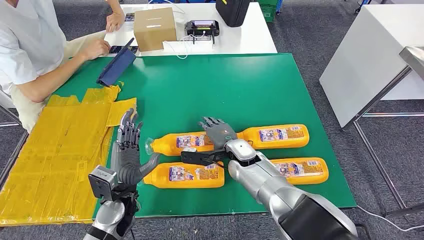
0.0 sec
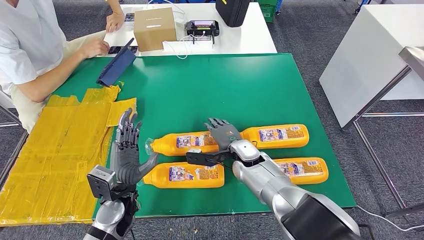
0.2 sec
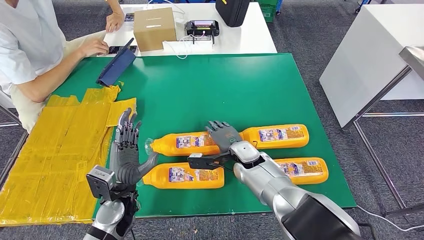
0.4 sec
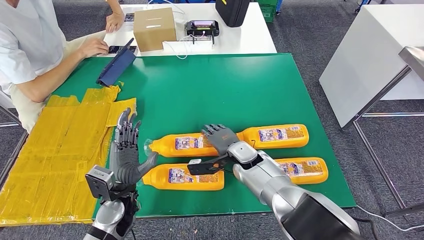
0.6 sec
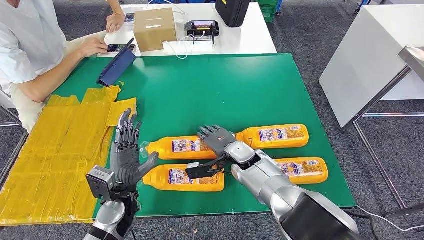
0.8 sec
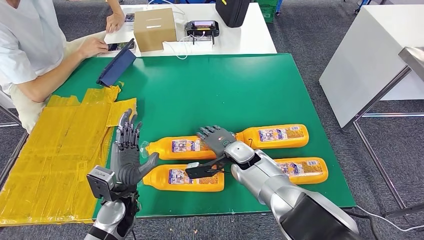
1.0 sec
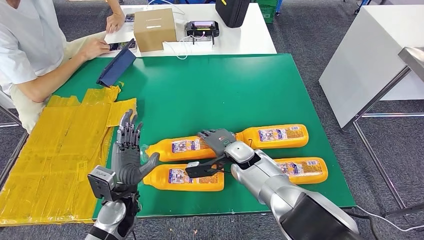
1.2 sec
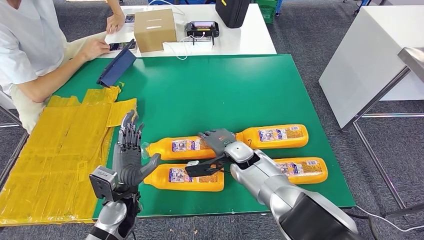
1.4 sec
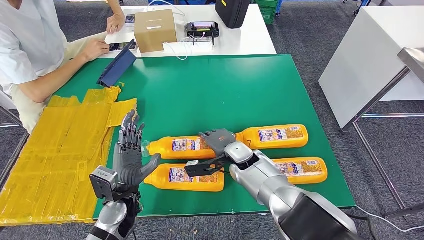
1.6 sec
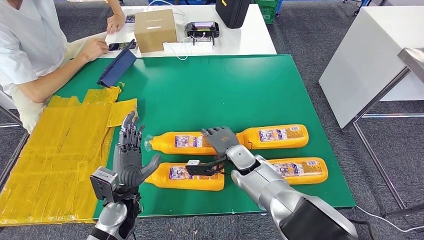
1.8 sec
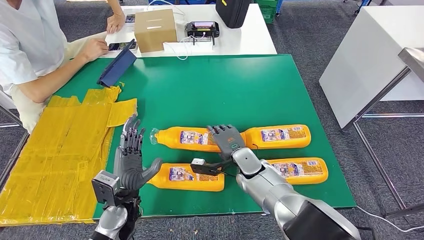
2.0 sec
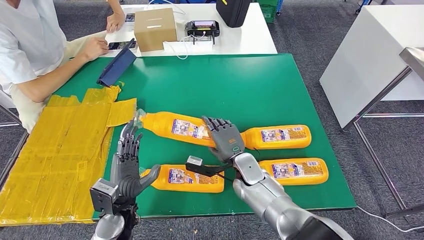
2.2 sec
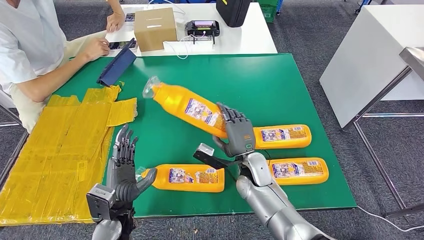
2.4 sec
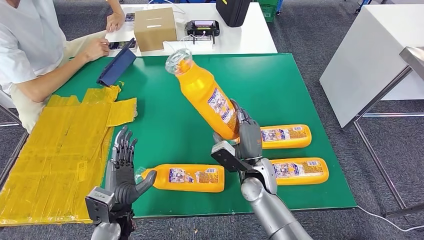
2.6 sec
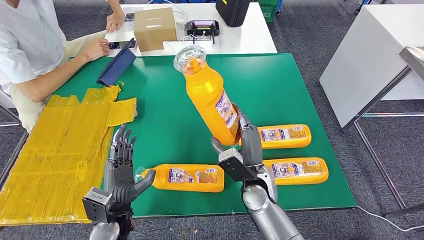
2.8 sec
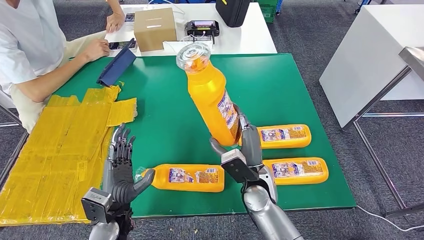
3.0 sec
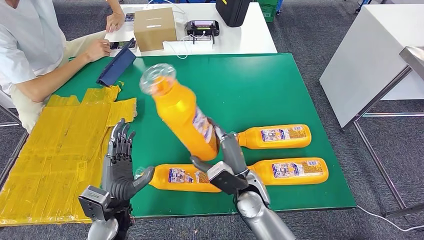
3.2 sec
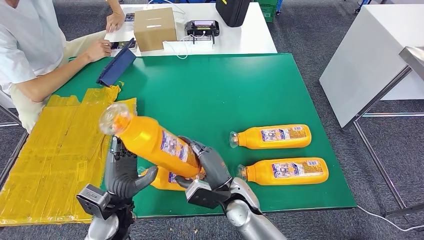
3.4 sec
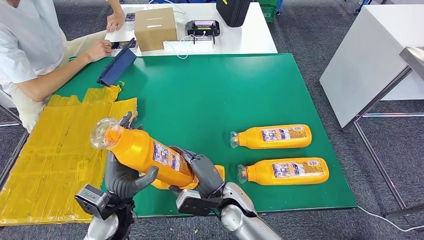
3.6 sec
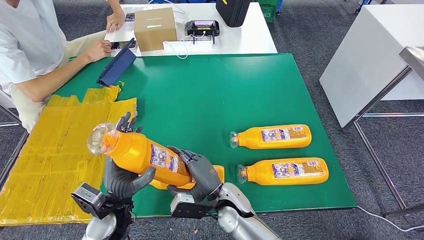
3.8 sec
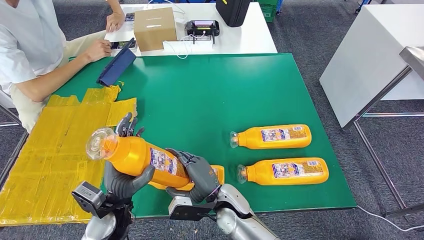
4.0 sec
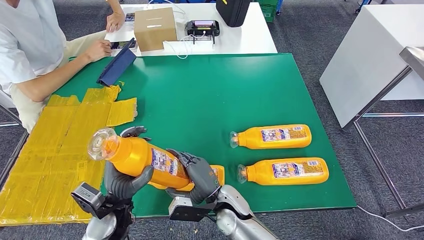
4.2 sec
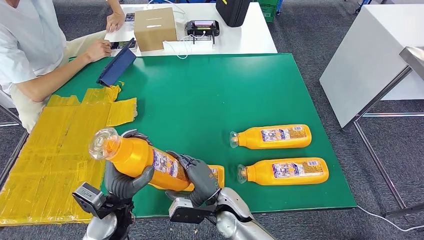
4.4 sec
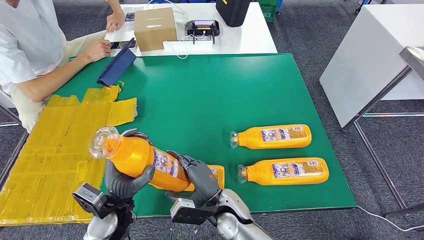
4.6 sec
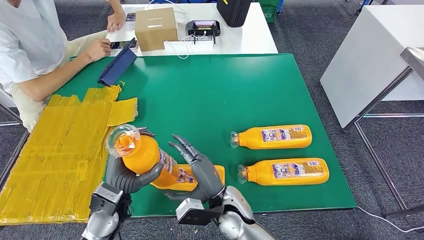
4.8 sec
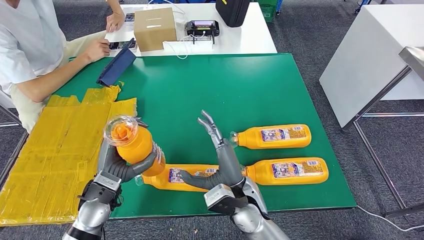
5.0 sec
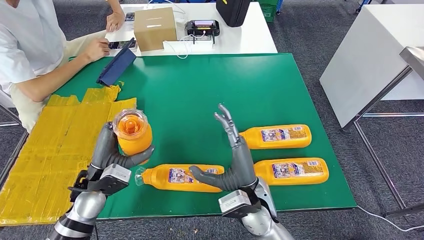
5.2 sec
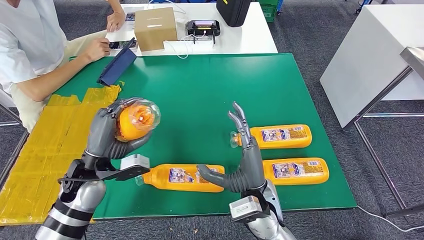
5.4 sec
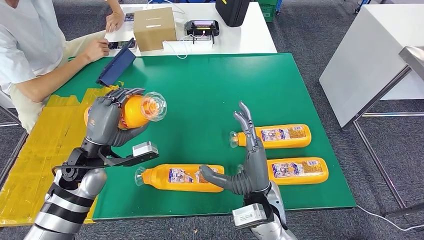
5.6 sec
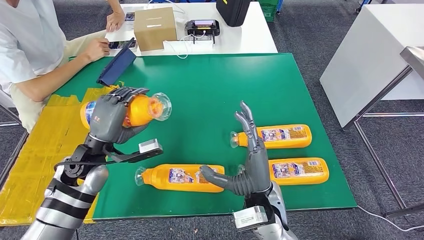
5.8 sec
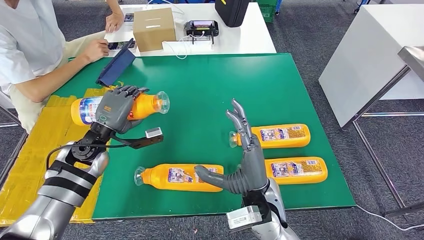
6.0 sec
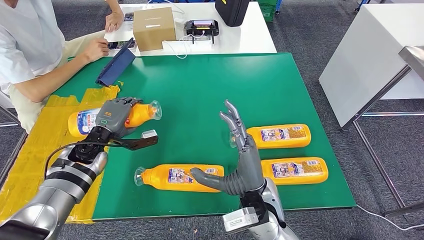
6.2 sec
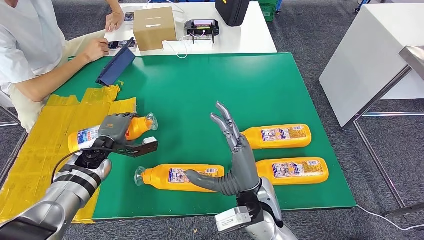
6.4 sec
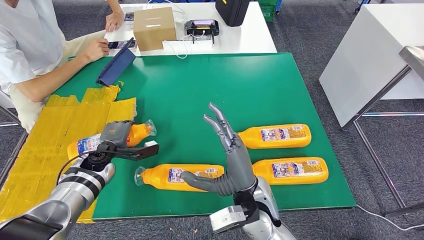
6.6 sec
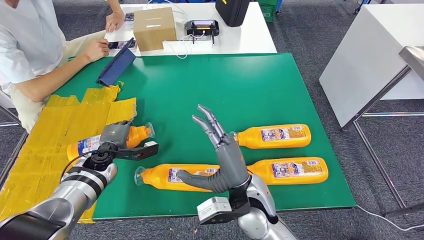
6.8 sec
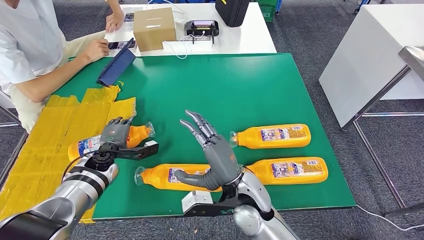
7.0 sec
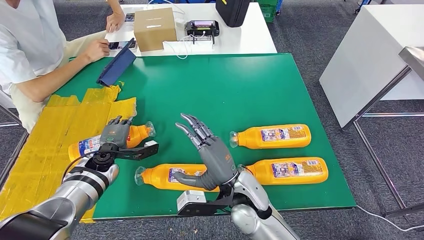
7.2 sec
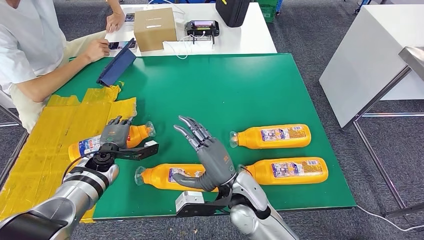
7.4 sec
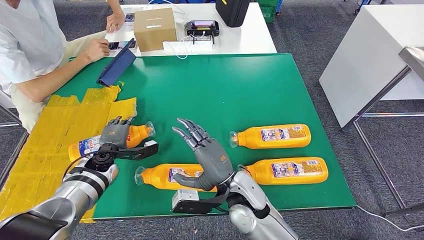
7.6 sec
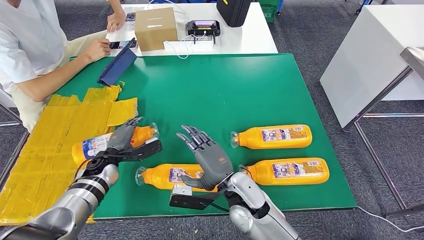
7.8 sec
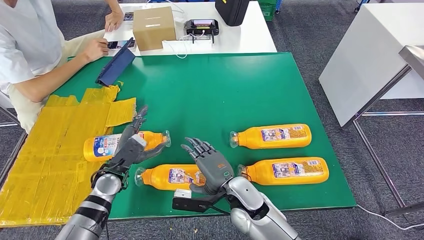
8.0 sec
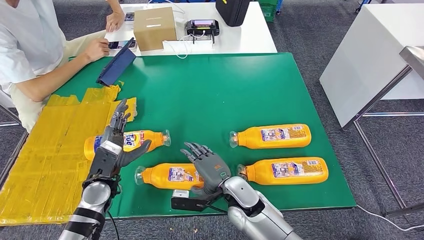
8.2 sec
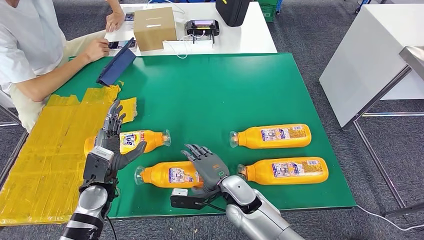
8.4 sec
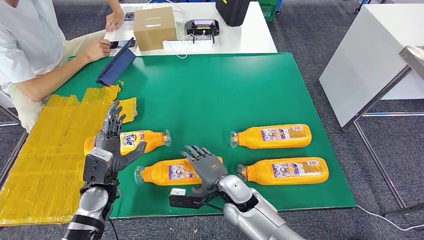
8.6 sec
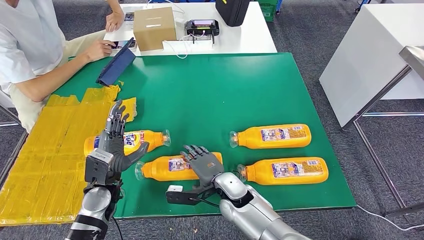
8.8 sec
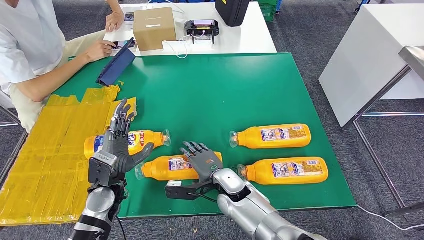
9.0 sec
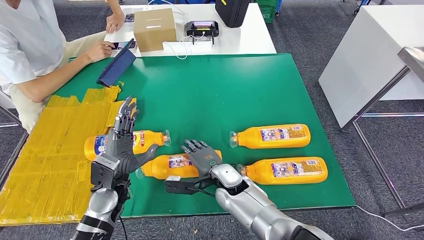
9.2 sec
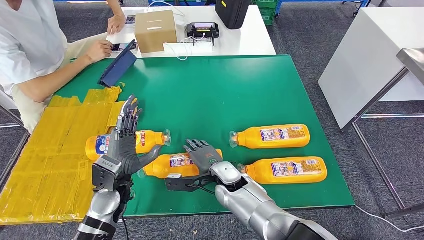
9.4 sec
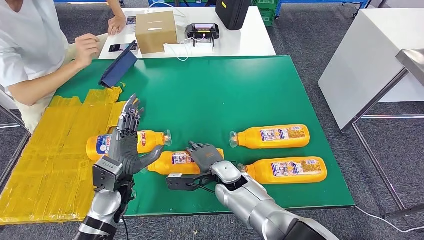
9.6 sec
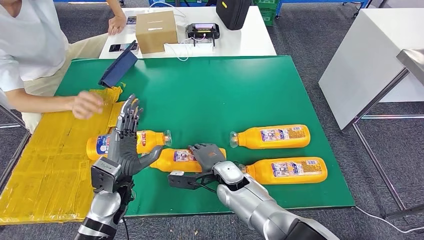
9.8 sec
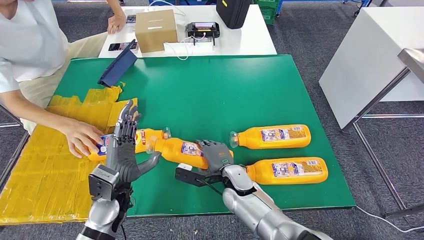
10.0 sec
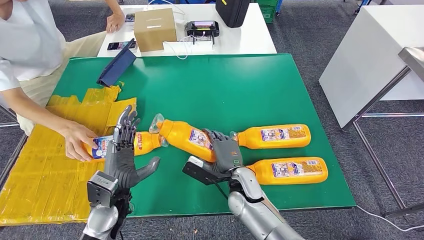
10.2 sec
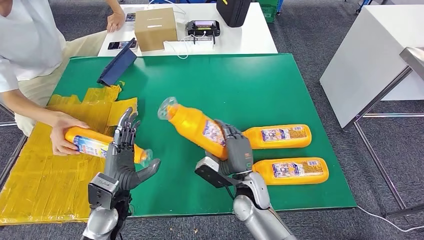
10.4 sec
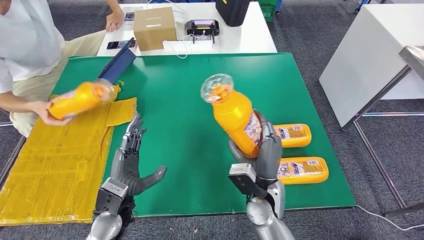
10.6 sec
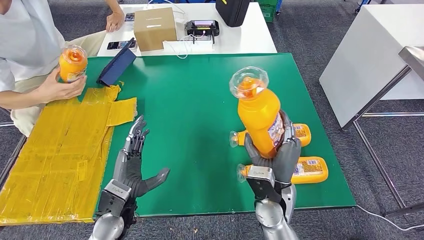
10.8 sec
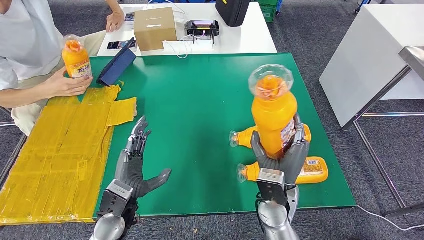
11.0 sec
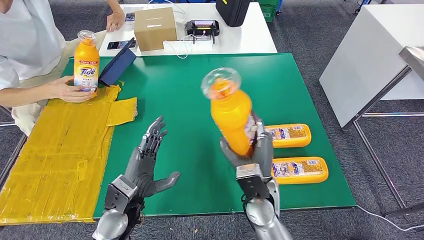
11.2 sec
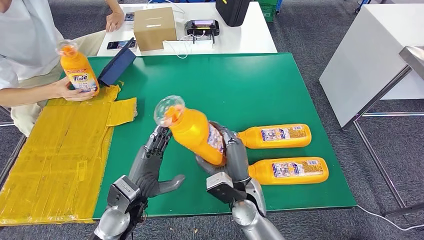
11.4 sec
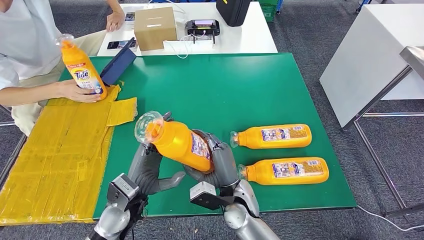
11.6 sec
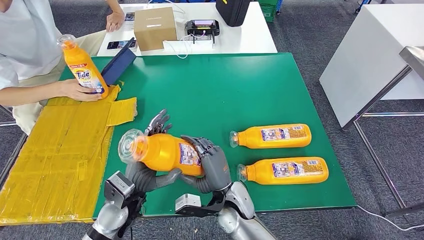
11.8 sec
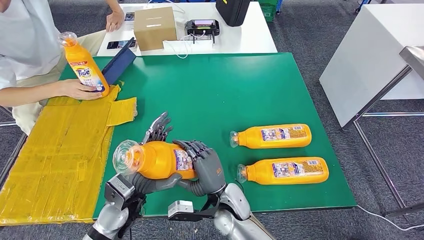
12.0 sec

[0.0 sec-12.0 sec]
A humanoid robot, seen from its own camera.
Step, 0.0 sec to 2.6 sec: Take the fast-moving consumer goods bottle from the table.
Step, 5.2 sec to 8.4 sec: Flip the fast-moving consumer goods bottle to the front side.
Step, 9.0 sec to 11.2 sec: Pick up the fast-moving consumer goods bottle from the table.
3.0 sec to 4.4 sec: The right hand moves to the left and downward, approximately 10 cm.
6.0 sec to 7.6 sec: The left hand moves downward, approximately 10 cm. The right hand shifts by some 5 cm.
7.6 sec to 9.0 sec: The right hand shifts roughly 10 cm downward, while the left hand travels backward and to the right by roughly 10 cm.

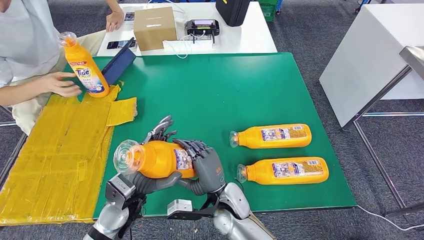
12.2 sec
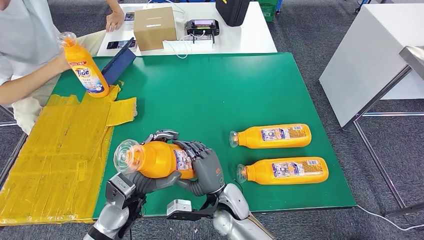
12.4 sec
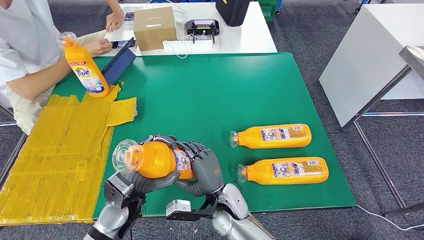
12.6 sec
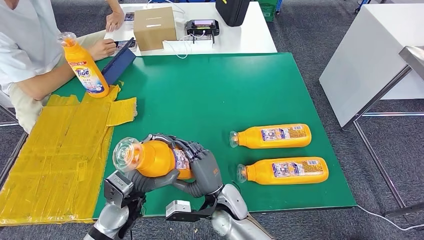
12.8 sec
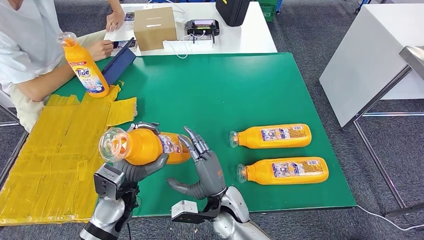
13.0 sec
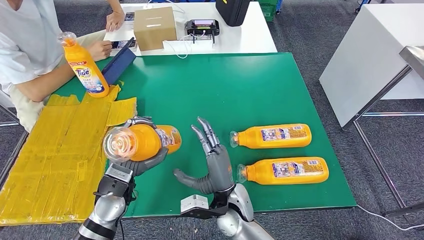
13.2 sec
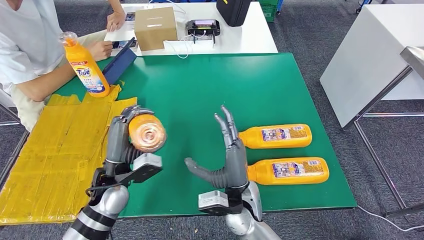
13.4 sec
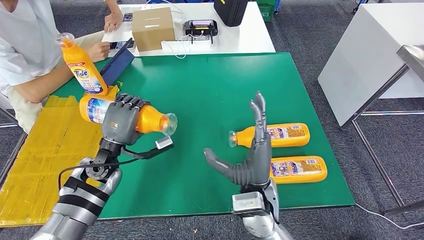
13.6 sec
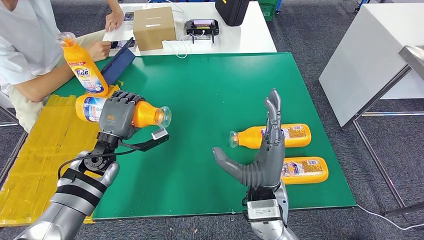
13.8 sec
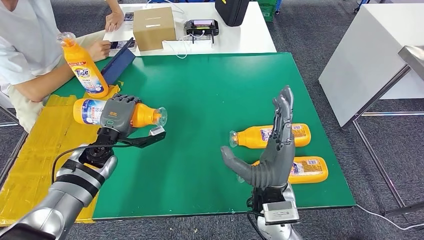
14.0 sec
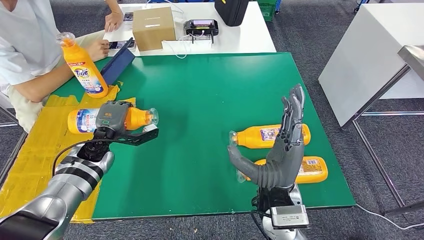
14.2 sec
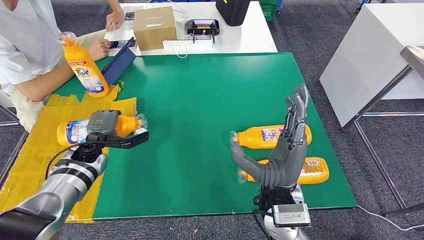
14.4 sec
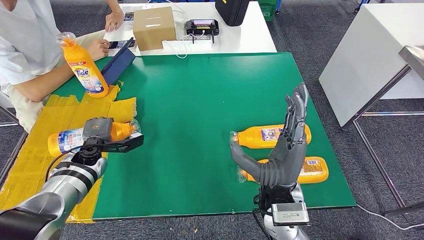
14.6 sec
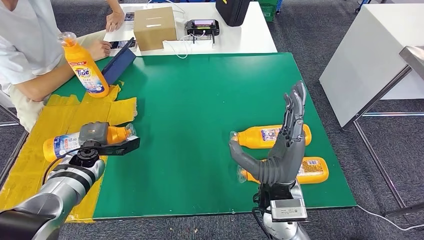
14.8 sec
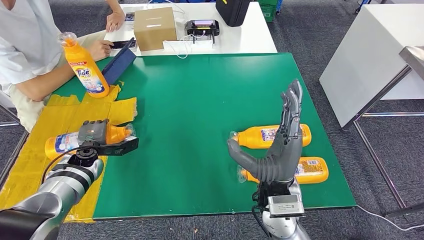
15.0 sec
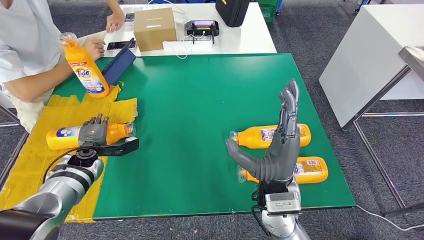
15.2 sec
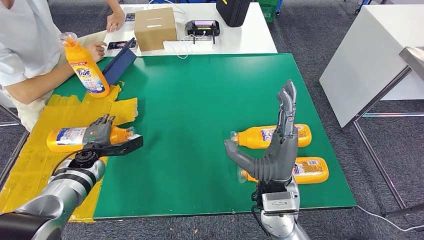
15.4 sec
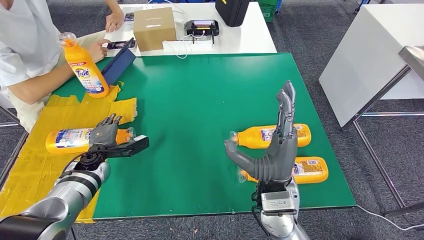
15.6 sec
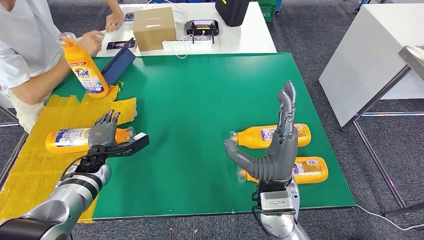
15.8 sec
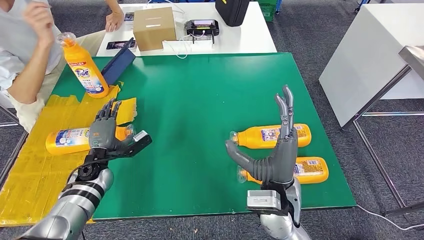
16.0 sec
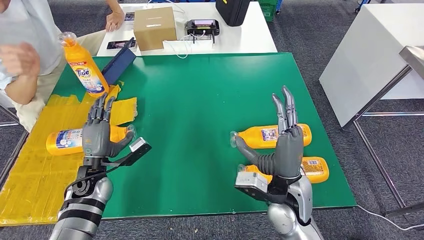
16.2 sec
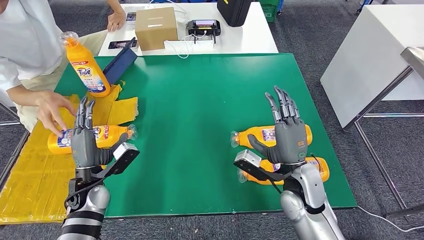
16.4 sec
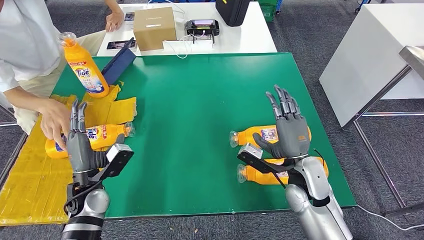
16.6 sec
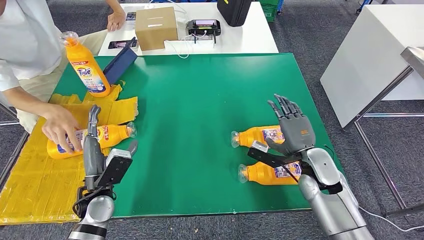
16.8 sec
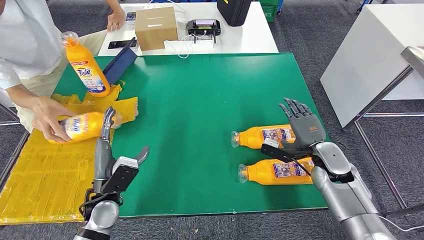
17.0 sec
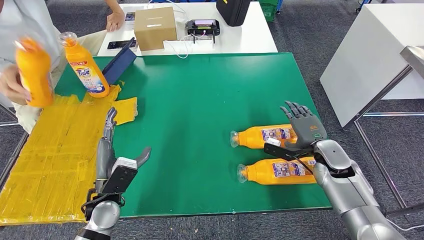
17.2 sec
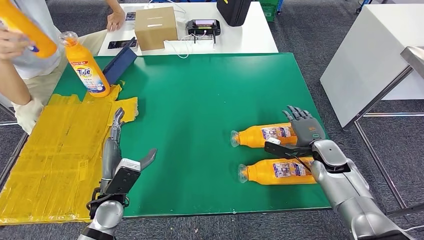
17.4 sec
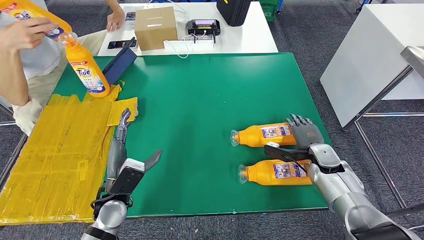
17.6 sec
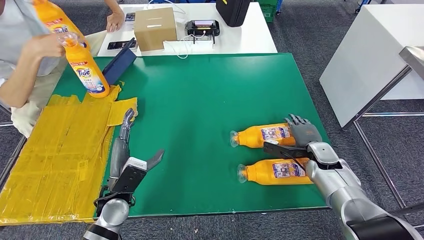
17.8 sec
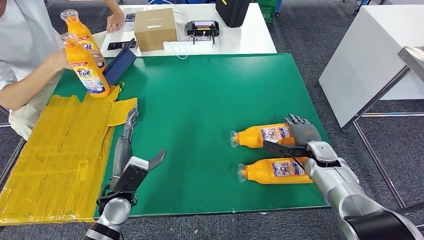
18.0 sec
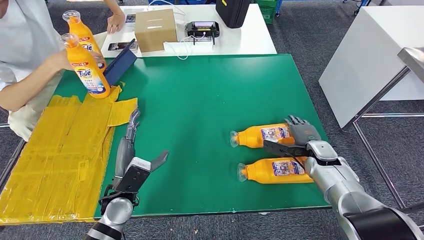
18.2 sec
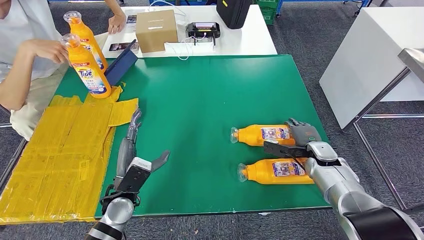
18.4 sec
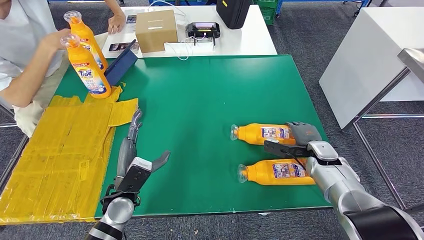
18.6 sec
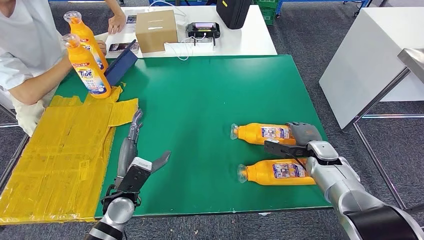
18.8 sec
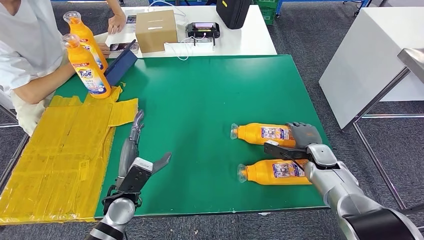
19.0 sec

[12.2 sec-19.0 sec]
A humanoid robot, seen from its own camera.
Step, 12.4 sec to 15.6 sec: Flip the fast-moving consumer goods bottle to the front side.
15.0 sec to 16.2 sec: The left hand shifts about 5 cm backward.
17.6 sec to 19.0 sec: The hands stay close to where they were, moving slightly.
